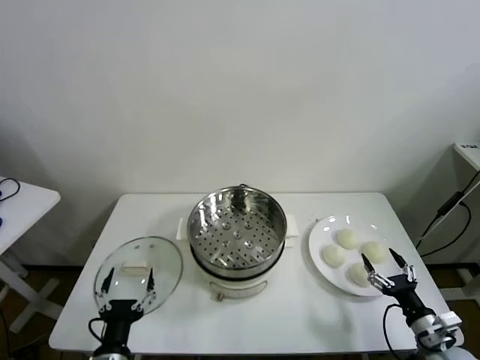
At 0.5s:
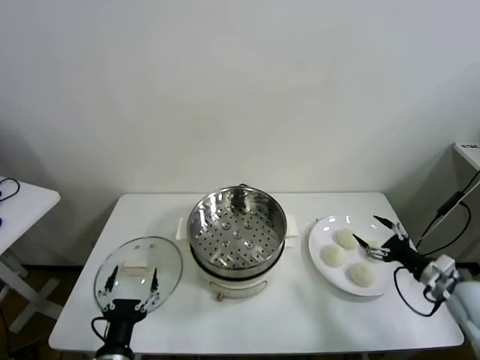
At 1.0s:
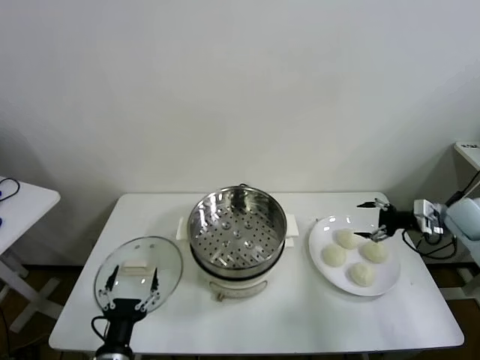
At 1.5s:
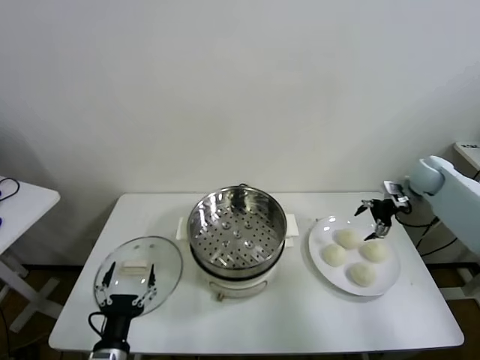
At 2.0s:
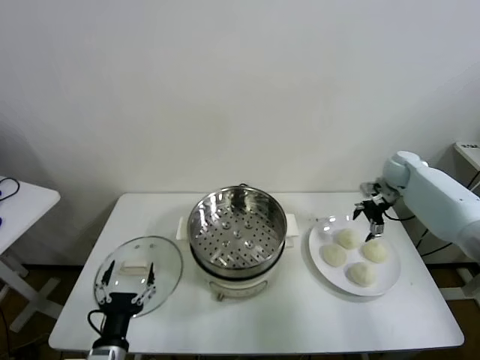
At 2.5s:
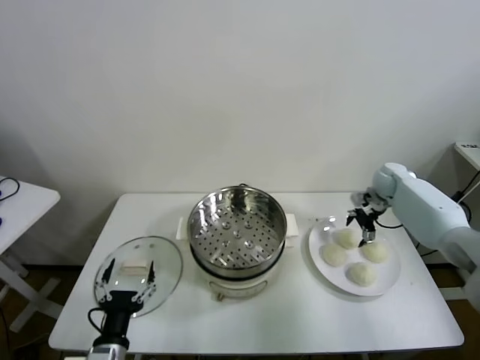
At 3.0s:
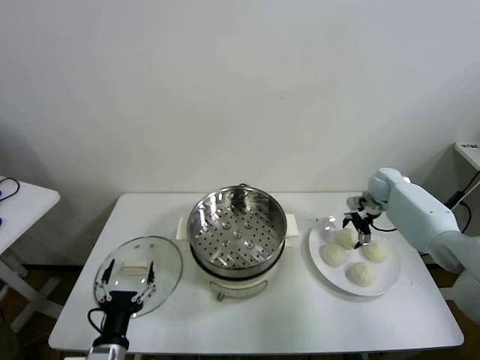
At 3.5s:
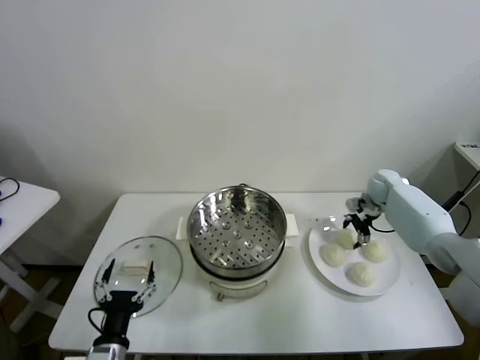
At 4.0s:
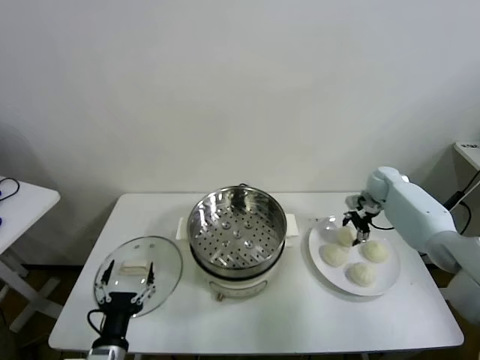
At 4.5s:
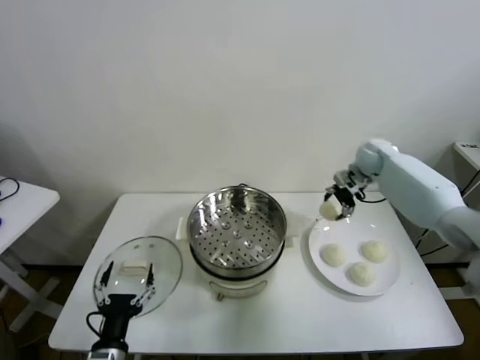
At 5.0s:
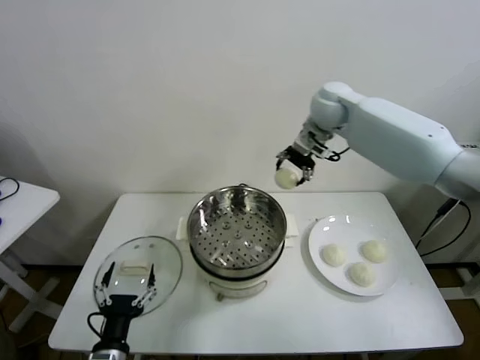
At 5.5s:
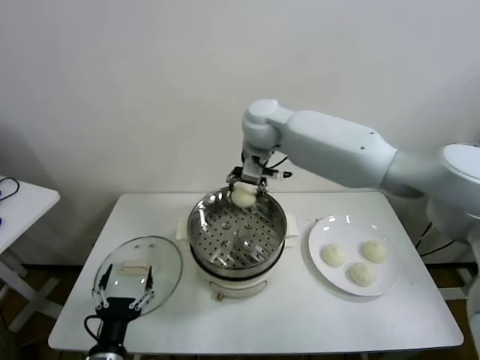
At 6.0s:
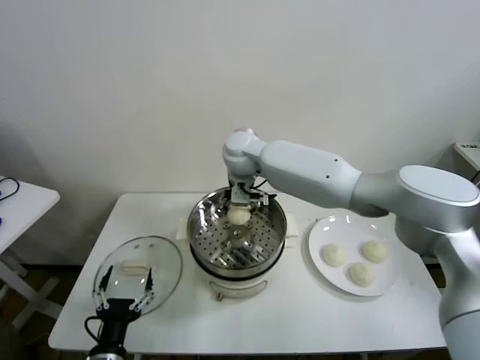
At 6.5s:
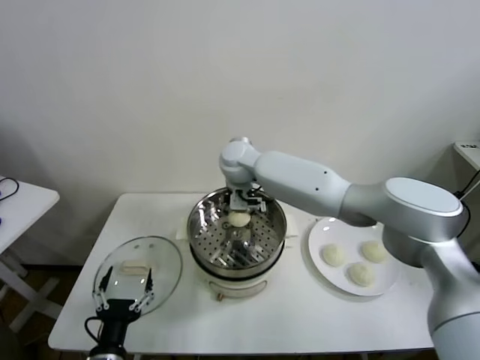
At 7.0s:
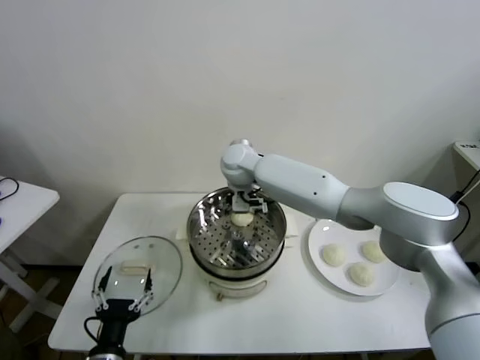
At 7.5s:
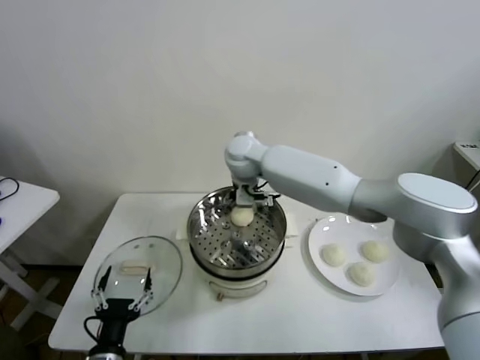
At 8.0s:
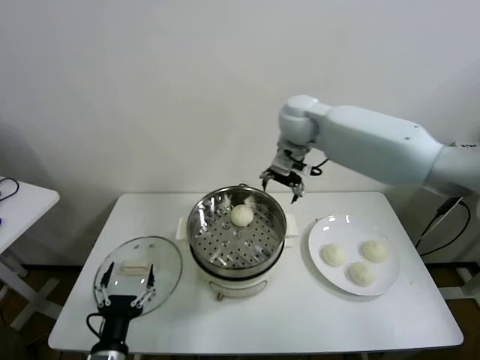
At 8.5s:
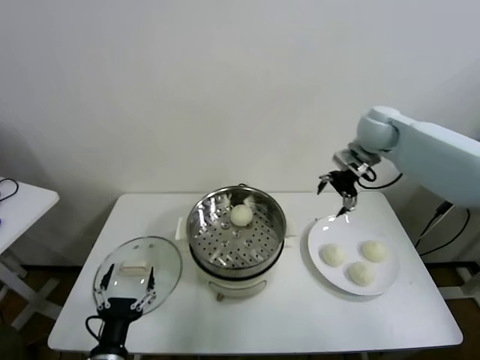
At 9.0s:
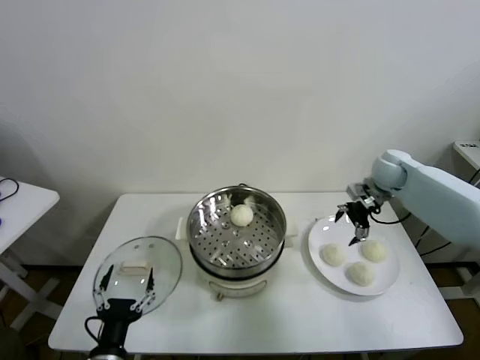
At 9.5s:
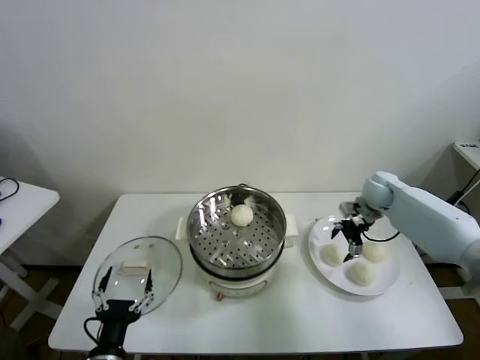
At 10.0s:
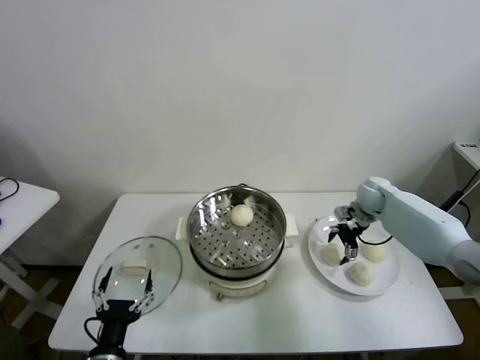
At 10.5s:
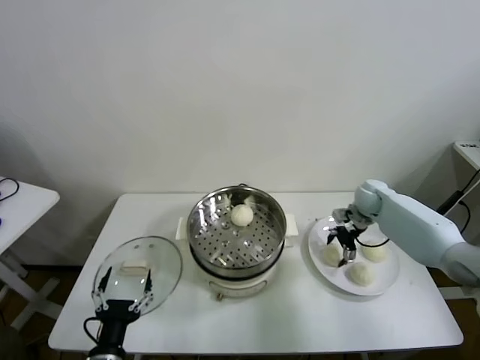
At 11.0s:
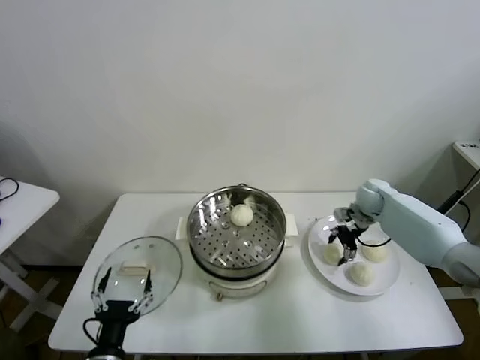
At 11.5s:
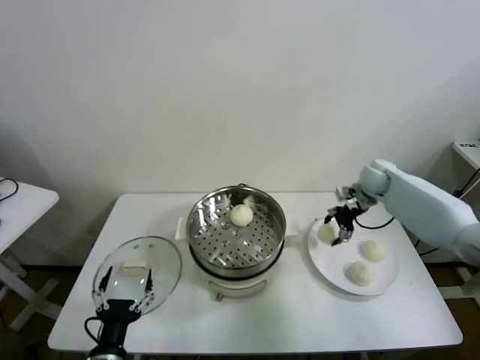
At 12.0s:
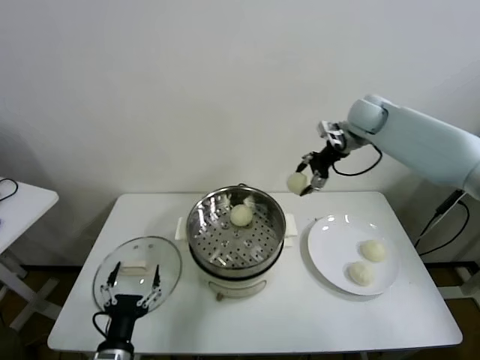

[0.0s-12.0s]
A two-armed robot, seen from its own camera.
Task of the whole recording: take steamed baozi put them in steamer.
Step, 0.0s to 3.5s: Grasp the baozi in the plate with right gripper.
Step, 4.0s to 7.5s: Place the baozi on the steamer with right gripper.
Step, 8.0s to 10.5s: Grasp the baozi in the plate with right gripper.
2.0s to 4.0s: The right gripper closes up.
4.0s to 6.0s: The right gripper travels to the left by approximately 40 cm.
6.0s to 8.0s: The right gripper goes some 20 cm to the right and upward, and opens its fingers.
8.0s to 10.0s: The right gripper travels downward and to the right by some 30 cm.
10.0s to 12.0s: The right gripper goes some 25 cm upward, and closes up.

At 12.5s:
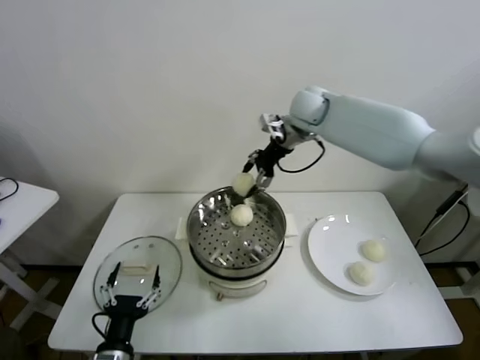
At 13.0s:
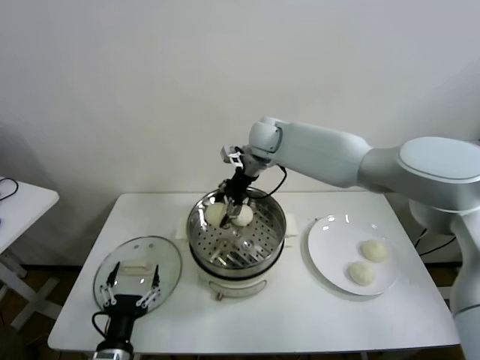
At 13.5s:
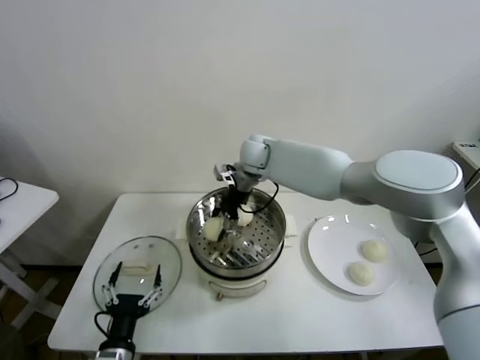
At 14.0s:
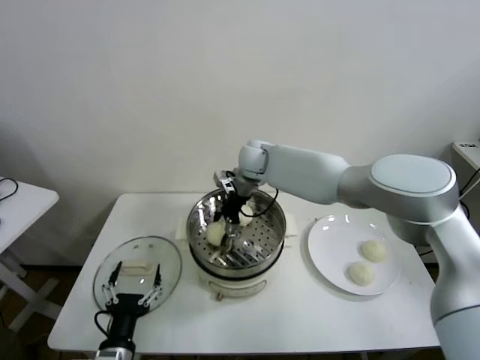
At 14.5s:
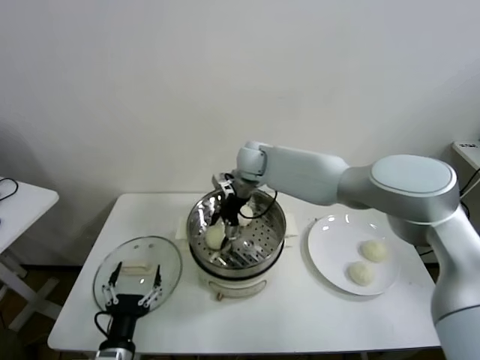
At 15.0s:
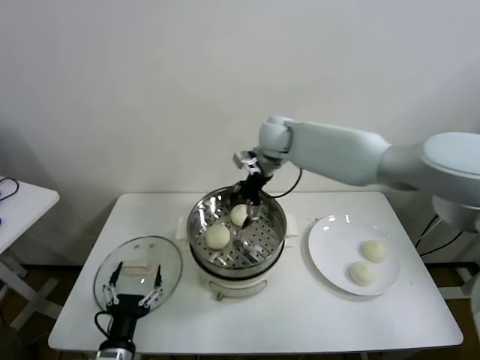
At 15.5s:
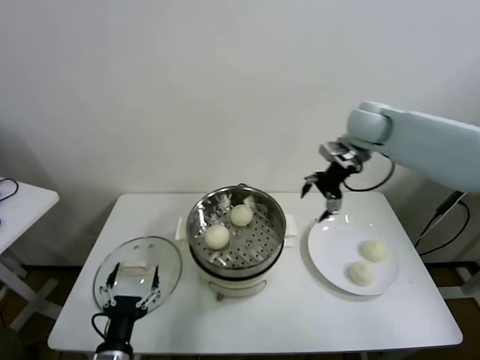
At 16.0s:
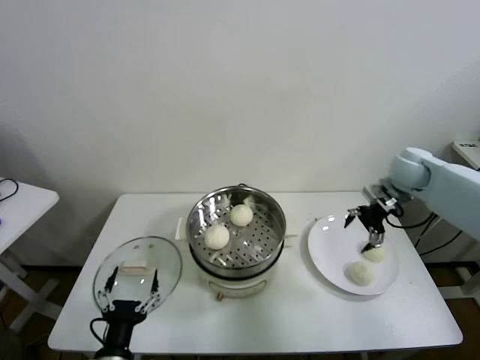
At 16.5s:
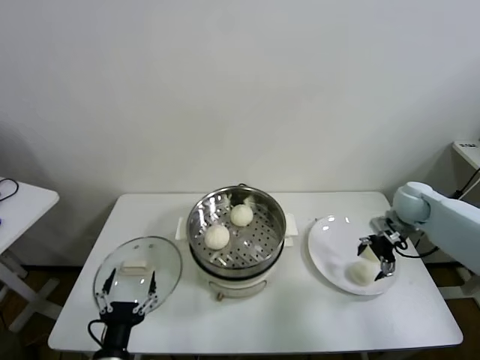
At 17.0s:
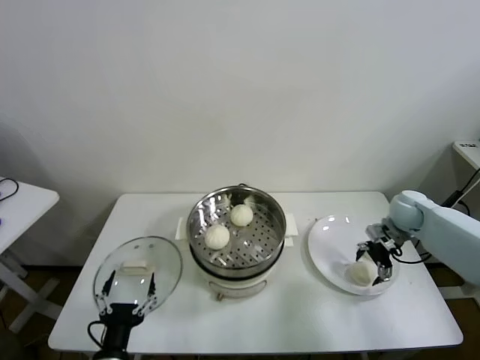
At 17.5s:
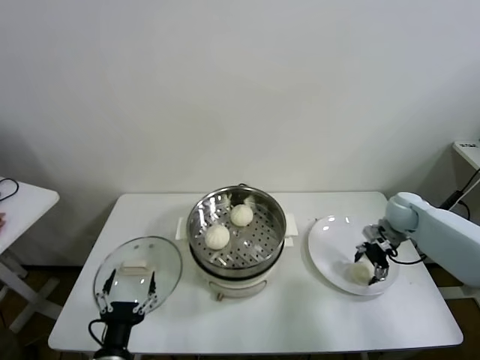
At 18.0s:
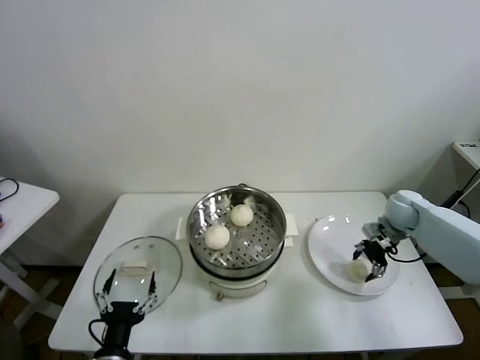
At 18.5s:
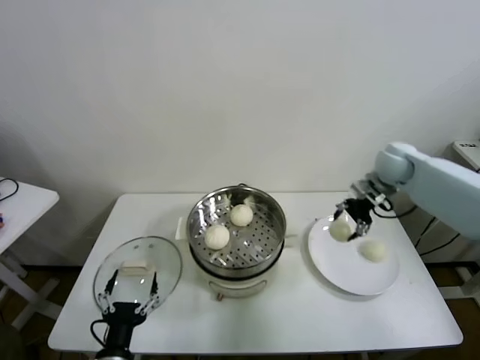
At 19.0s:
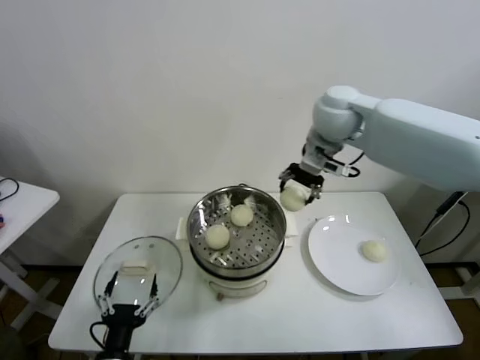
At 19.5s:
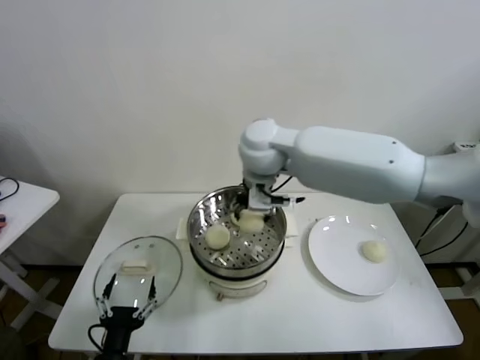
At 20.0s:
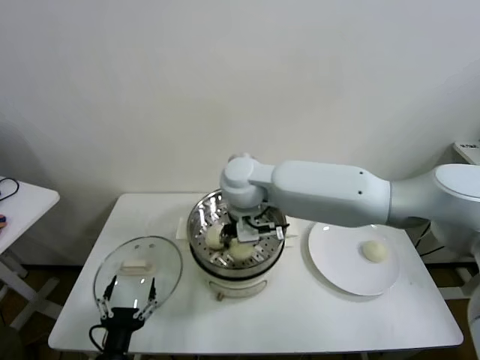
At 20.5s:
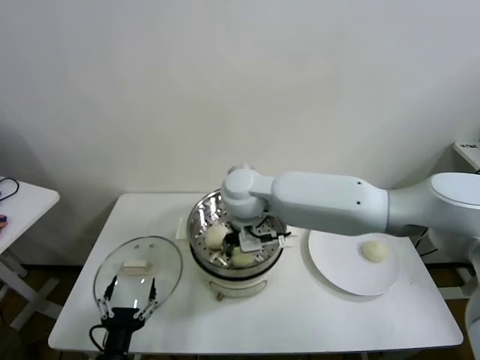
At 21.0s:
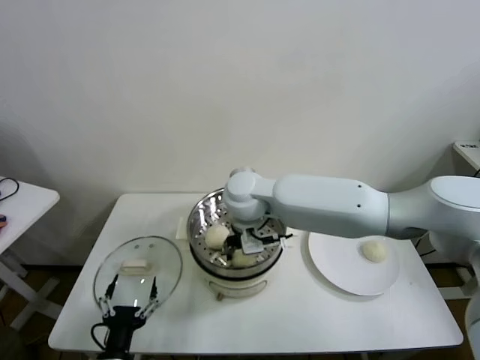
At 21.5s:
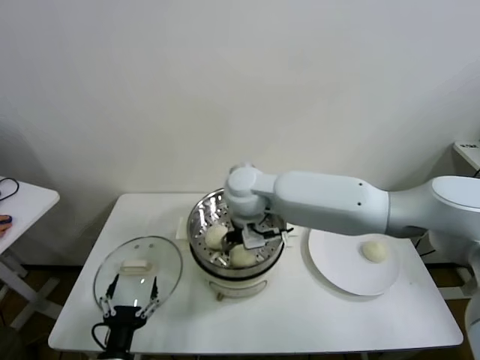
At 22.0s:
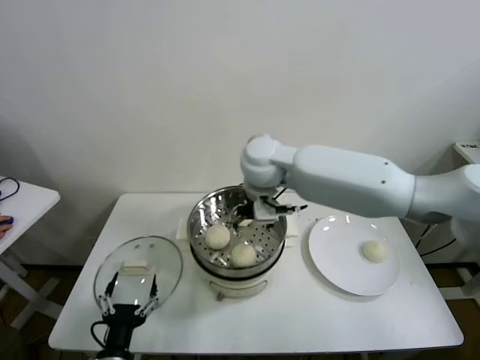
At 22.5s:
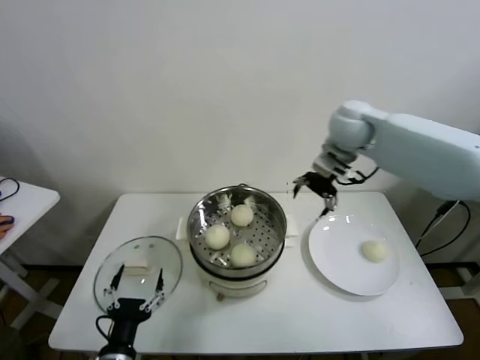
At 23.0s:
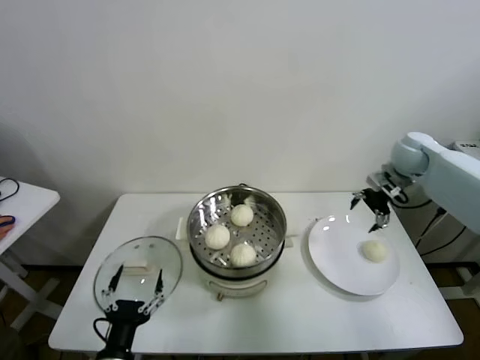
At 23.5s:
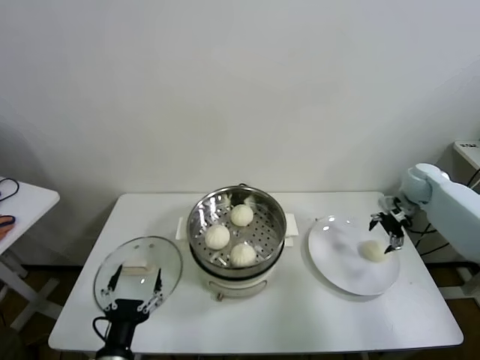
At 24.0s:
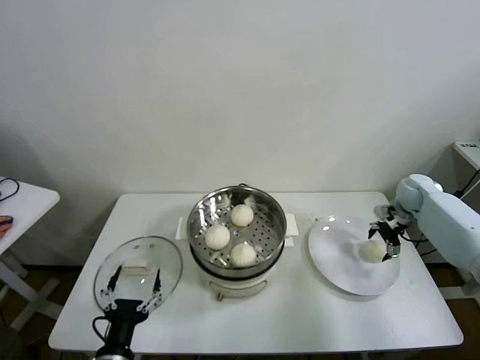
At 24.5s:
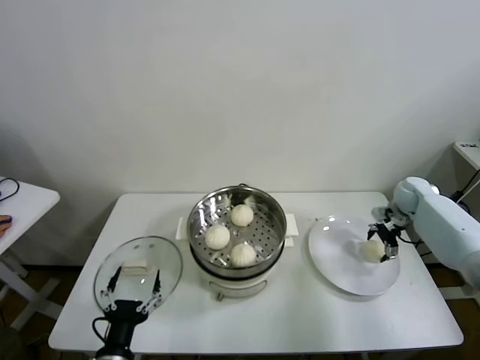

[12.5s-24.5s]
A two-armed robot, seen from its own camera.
Task of the whole recording: take steamed baozi put them in steamer.
Step, 12.5s to 14.5s: Place the baozi on the steamer with right gripper.
Step, 15.0s to 17.5s: Grasp the baozi in the plate with right gripper.
Step, 18.0s to 21.5s: Place the baozi on the steamer with right gripper.
12.5s to 14.5s: The right gripper travels downward and to the left by roughly 15 cm, and opens.
14.5s to 16.5s: The right gripper shifts roughly 40 cm to the right.
16.5s to 18.5s: The right gripper moves upward, to the left and forward, about 15 cm, and closes its fingers.
18.5s to 20.5s: The right gripper travels to the left by about 35 cm.
20.5s to 22.5s: The right gripper shifts approximately 25 cm to the right and forward, and opens up.
22.5s to 24.5s: The right gripper goes about 35 cm to the right and downward.

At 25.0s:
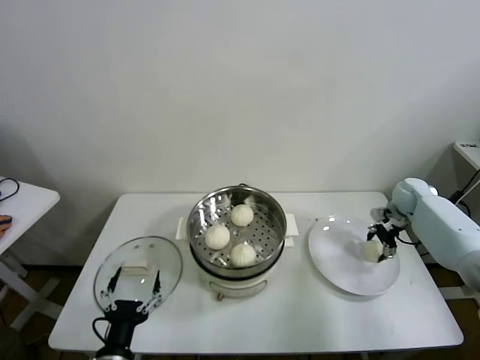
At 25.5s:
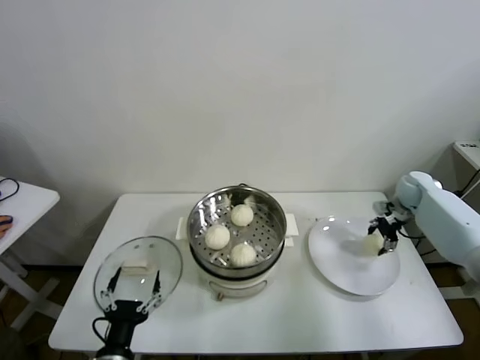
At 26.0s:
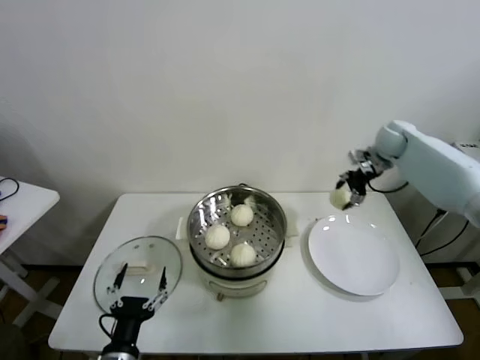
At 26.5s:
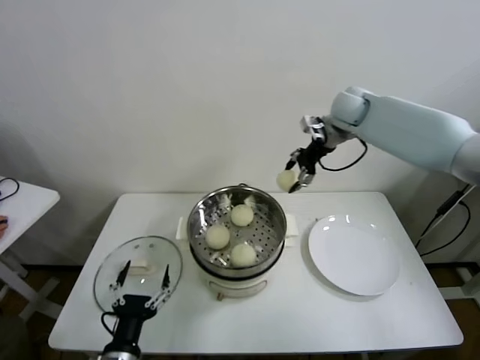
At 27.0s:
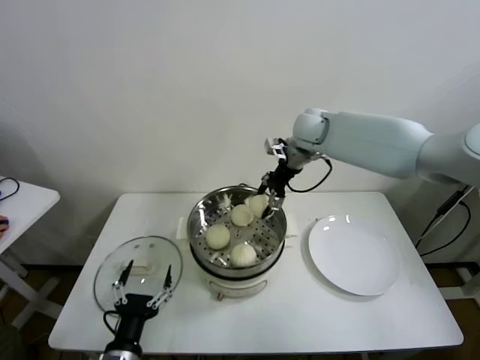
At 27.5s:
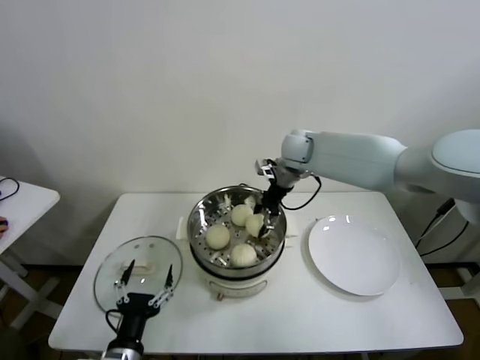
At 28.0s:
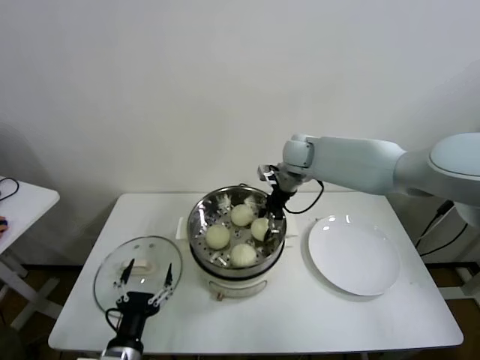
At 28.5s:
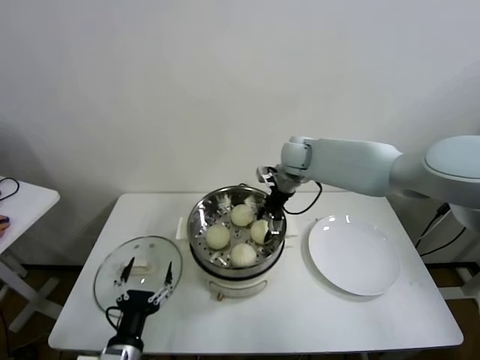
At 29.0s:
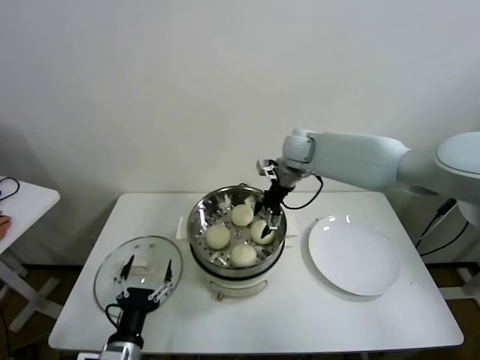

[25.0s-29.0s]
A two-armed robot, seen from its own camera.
Task of the whole recording: take steamed baozi put them in steamer.
25.0s to 27.0s: The right gripper is displaced to the left and upward by approximately 35 cm.
27.0s to 29.0s: The right gripper moves downward, approximately 5 cm, and opens its fingers.
